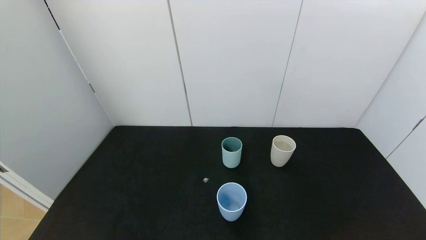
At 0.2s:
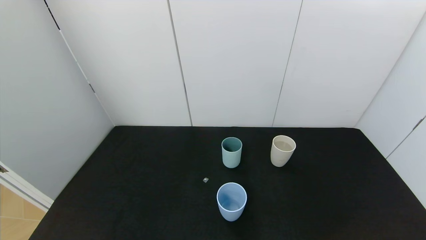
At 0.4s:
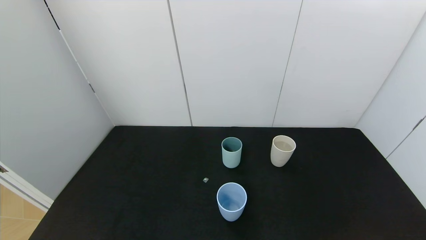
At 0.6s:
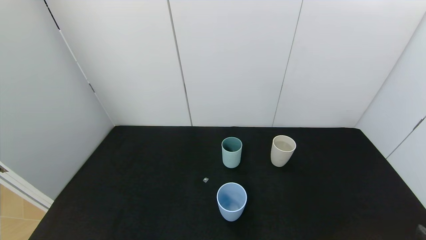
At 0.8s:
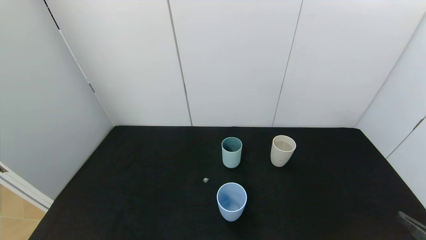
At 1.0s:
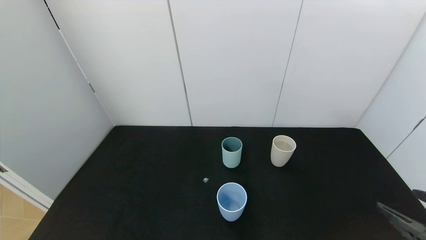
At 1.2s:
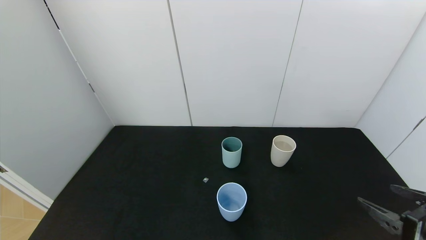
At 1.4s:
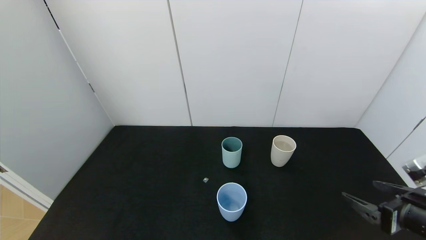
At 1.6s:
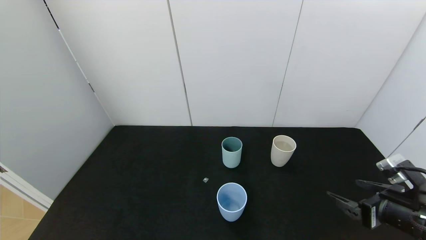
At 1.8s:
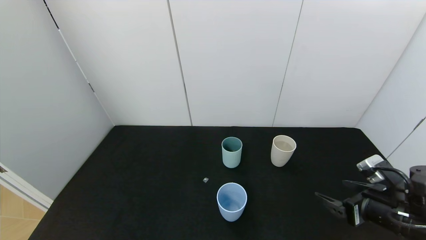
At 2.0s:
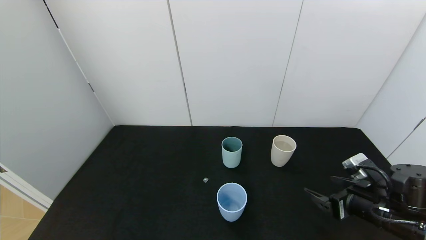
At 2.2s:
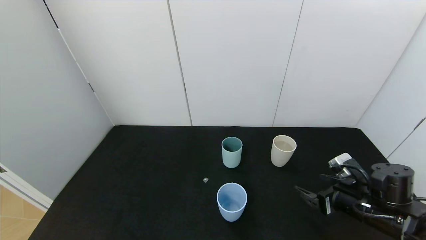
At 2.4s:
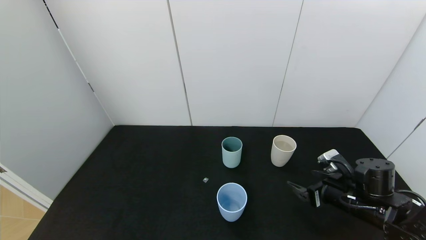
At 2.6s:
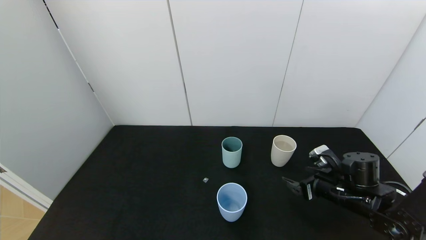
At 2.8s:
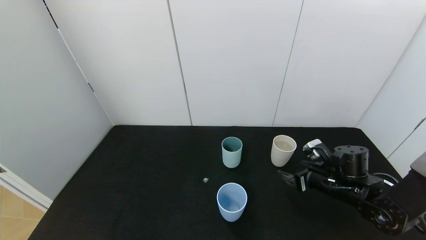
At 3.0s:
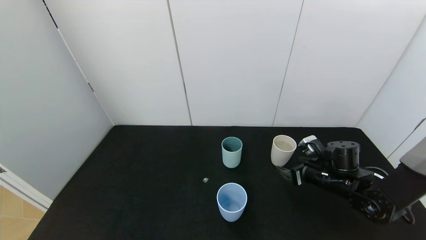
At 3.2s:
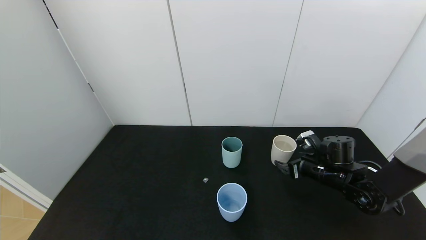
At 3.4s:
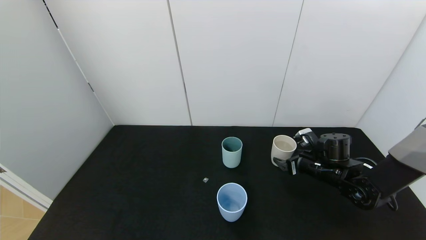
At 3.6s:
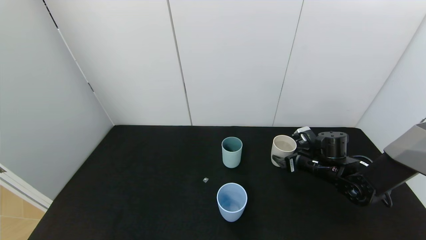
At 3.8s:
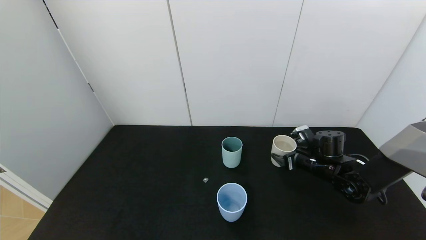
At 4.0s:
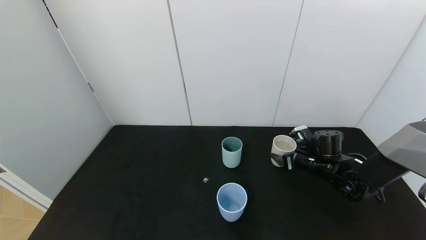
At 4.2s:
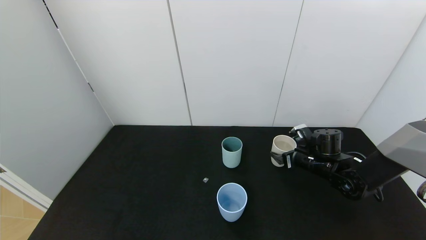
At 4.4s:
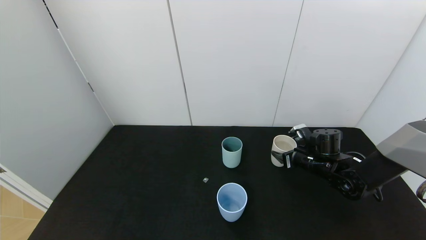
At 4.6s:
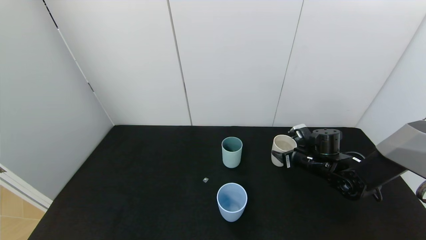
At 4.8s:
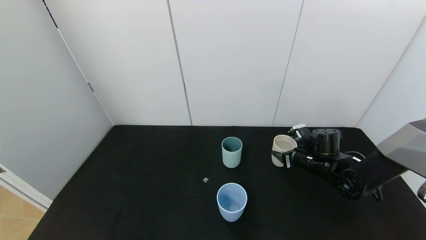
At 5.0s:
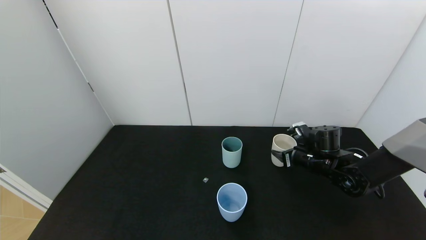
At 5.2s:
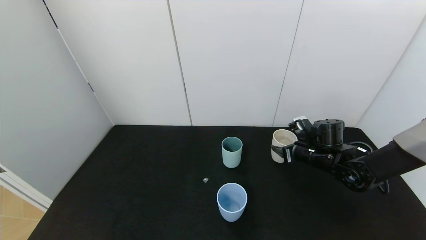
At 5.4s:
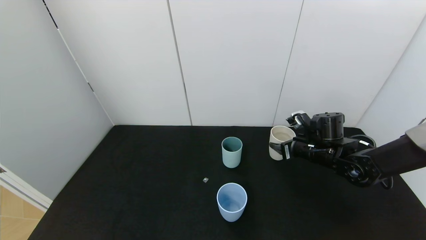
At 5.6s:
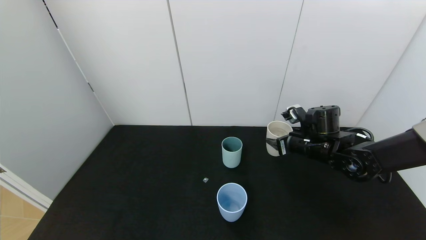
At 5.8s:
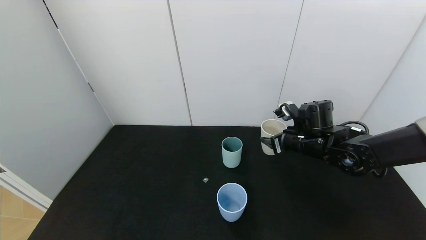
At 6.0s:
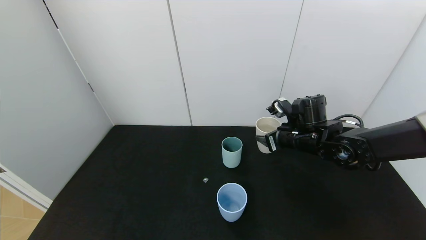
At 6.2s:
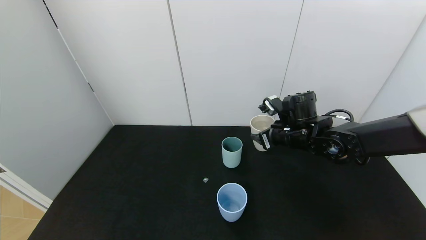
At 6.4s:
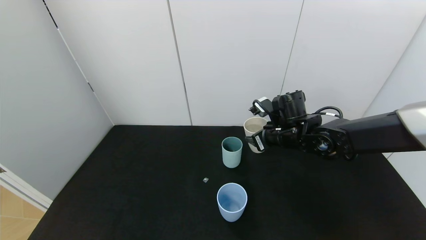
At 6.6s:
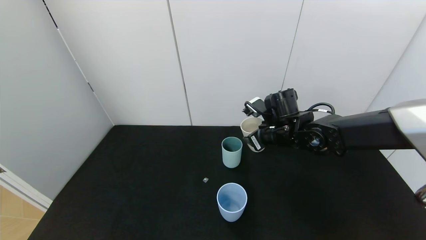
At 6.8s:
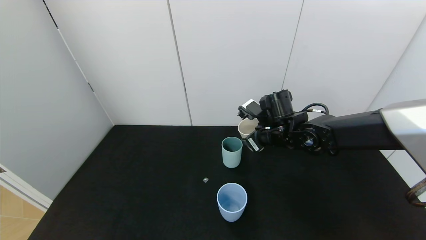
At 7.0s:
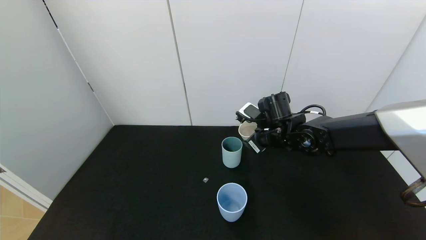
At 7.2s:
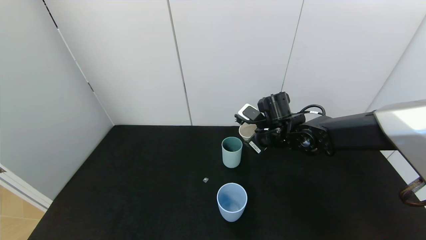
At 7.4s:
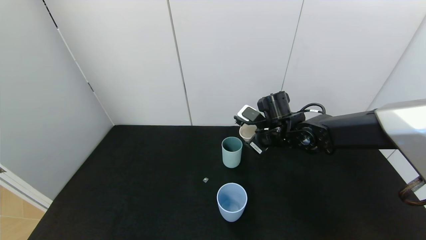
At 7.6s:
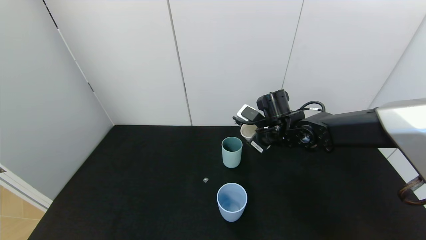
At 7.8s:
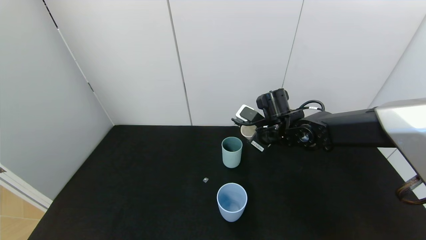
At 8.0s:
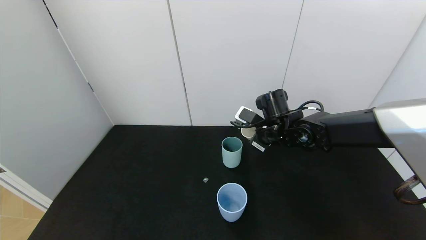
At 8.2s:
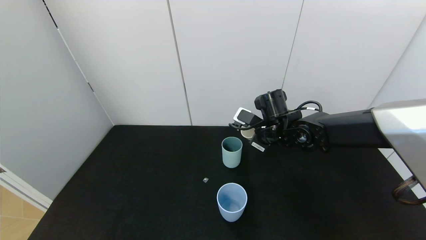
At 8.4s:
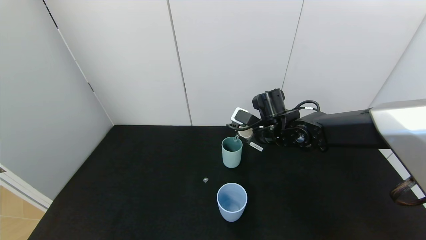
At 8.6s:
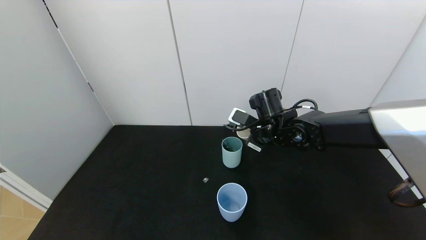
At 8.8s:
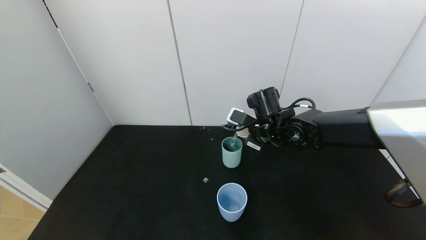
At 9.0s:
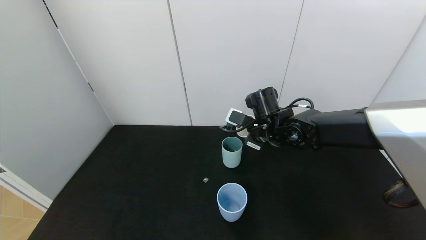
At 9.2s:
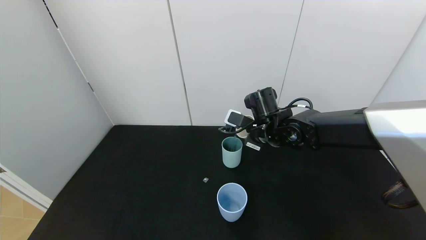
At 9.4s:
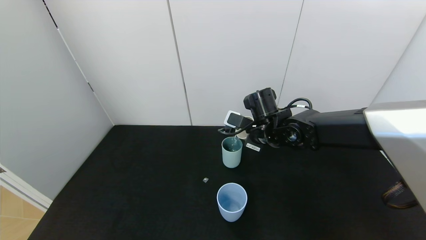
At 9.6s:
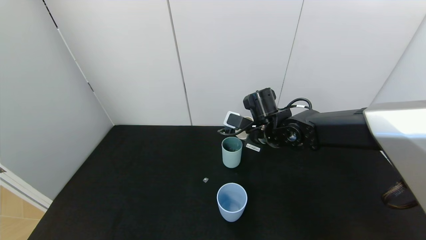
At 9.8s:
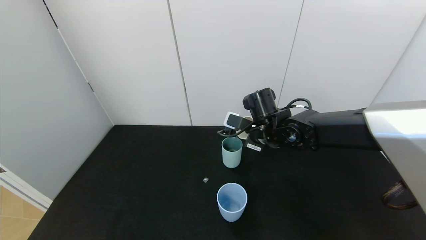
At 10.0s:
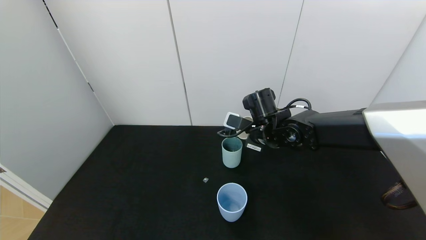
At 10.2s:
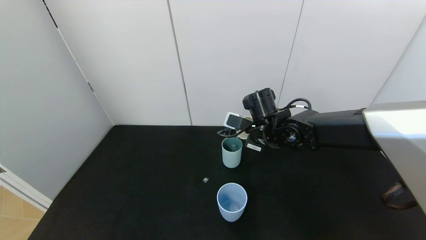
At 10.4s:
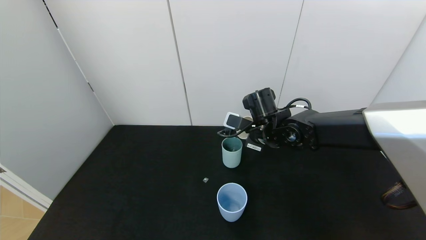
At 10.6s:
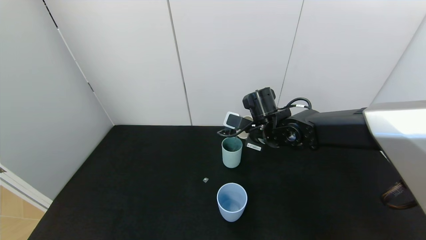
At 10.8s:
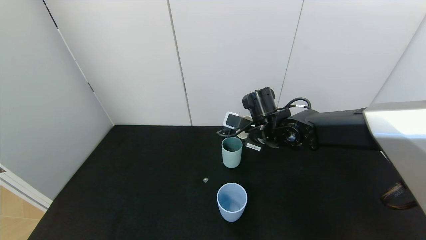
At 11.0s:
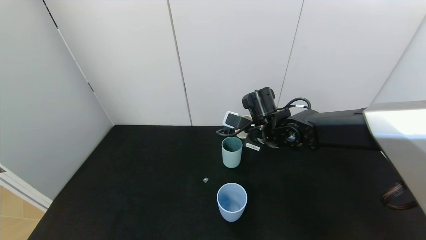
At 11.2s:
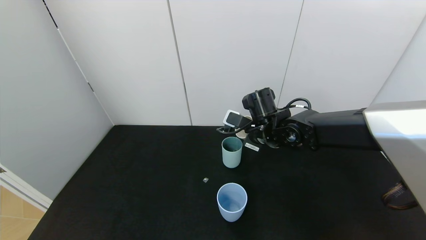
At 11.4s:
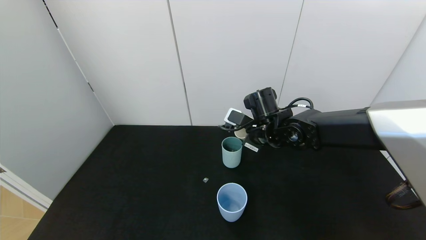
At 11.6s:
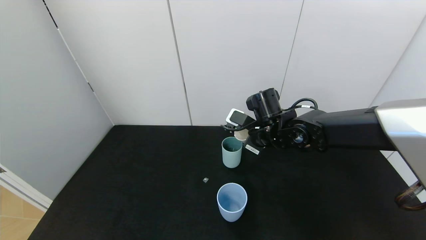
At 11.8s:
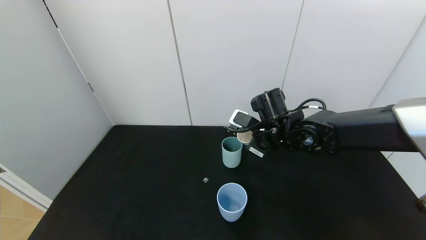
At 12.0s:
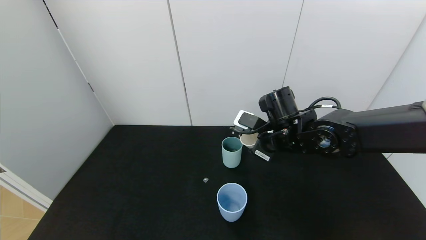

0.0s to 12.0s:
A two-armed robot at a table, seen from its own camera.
Task of the whole recording: use the gripper to pour the water into the other two cups on black table.
Step, 0.0s to 4.6s: Grasp the white cup with the right gripper.
Step, 4.8s to 12.0s: Pour water from white cup to green cup with the right gripper.
0.0s to 1.6s: The right gripper goes about 20 cm forward.
1.6s to 3.0s: The right gripper travels forward and to the left by roughly 15 cm.
3.0s to 4.4s: The right gripper shifts about 5 cm forward, and closes.
4.4s to 6.0s: The right gripper moves upward and to the left, about 10 cm.
6.0s to 7.6s: The right gripper goes roughly 5 cm to the left.
7.6s to 9.0s: The grippers make only small movements.
9.0s to 10.4s: The grippers stay close to where they were, moving slightly.
10.4s to 12.0s: The right gripper changes place by about 5 cm.

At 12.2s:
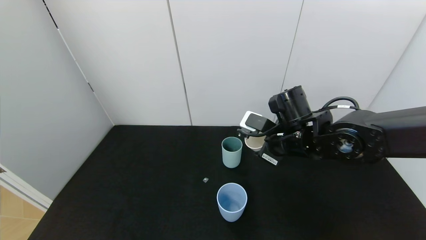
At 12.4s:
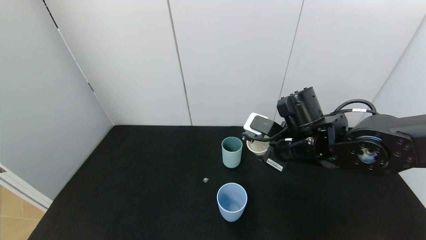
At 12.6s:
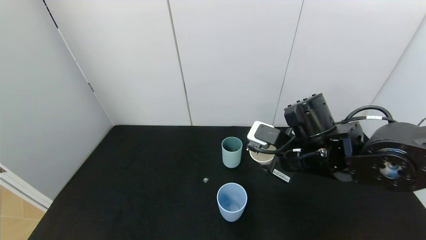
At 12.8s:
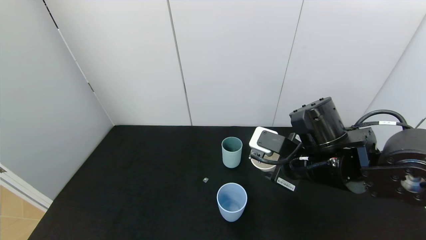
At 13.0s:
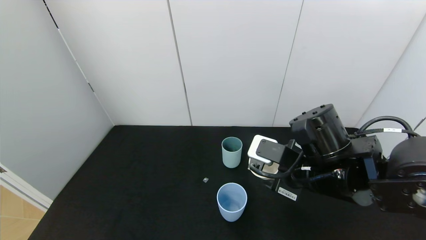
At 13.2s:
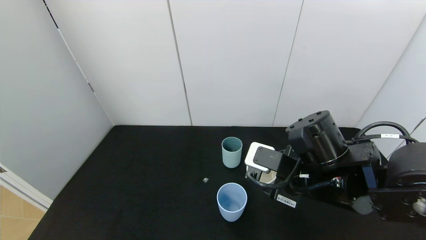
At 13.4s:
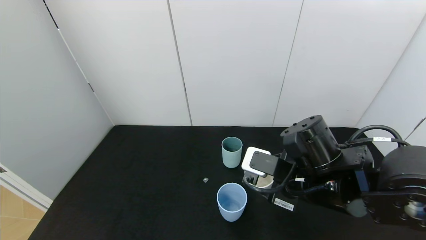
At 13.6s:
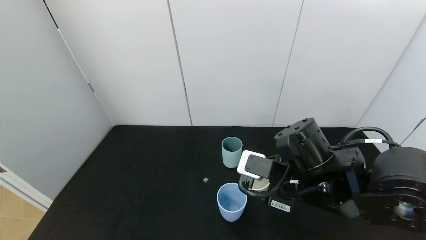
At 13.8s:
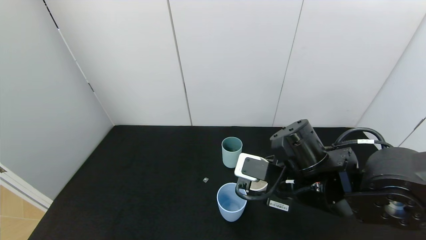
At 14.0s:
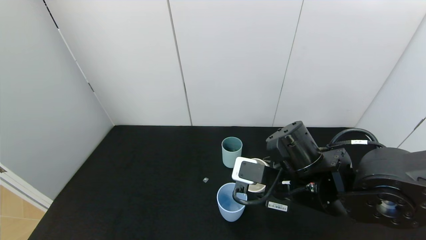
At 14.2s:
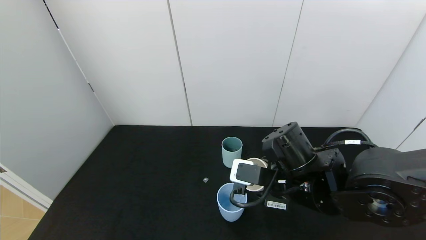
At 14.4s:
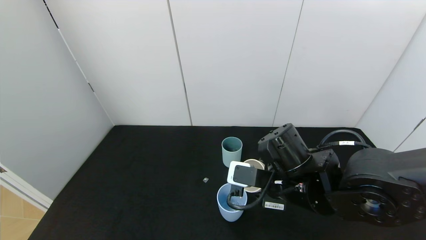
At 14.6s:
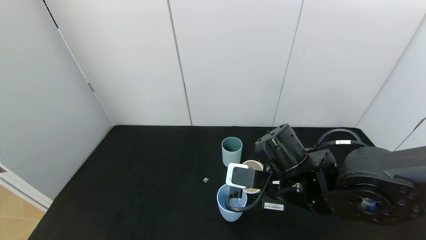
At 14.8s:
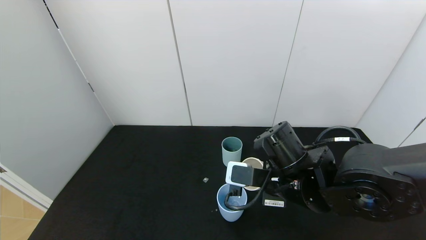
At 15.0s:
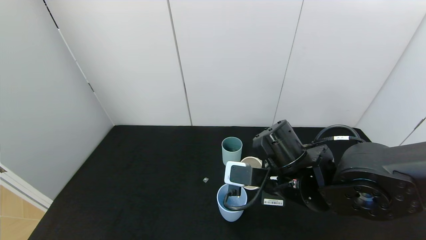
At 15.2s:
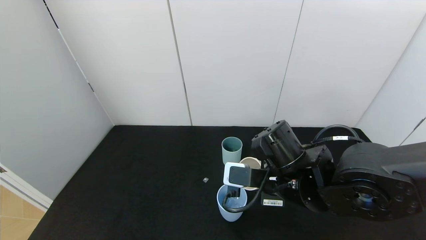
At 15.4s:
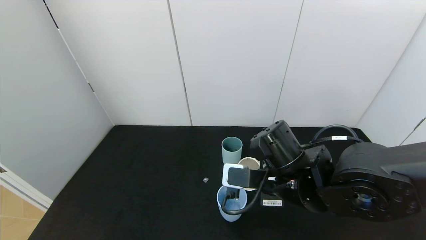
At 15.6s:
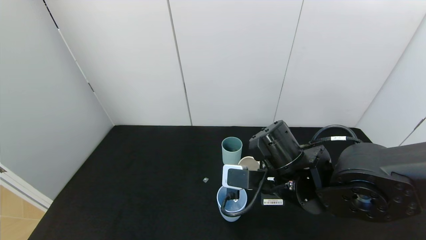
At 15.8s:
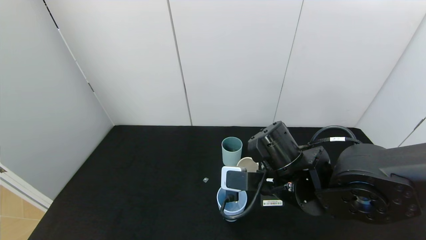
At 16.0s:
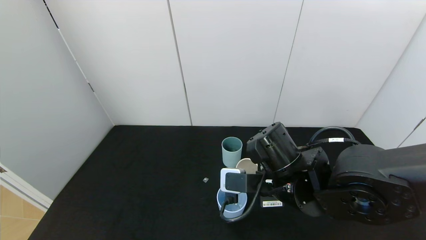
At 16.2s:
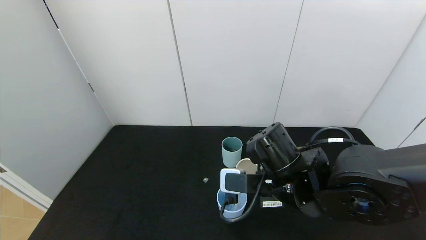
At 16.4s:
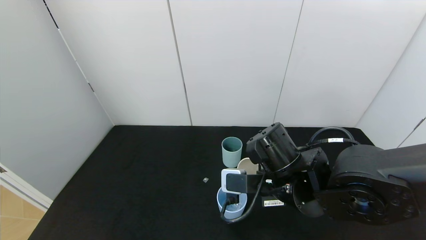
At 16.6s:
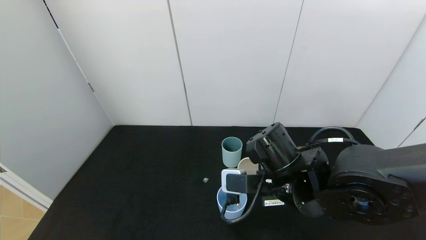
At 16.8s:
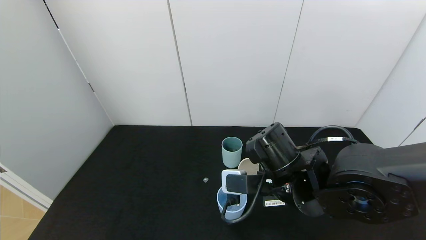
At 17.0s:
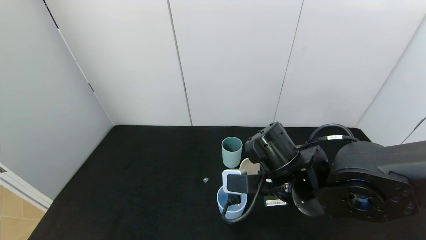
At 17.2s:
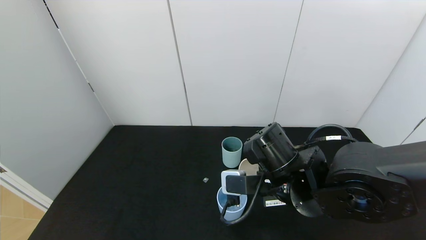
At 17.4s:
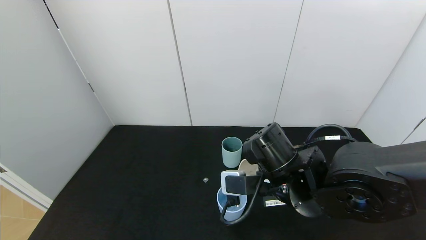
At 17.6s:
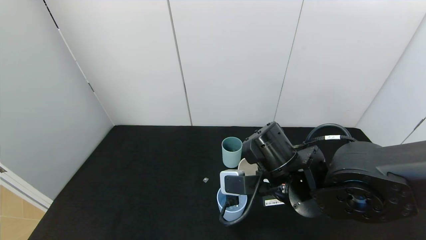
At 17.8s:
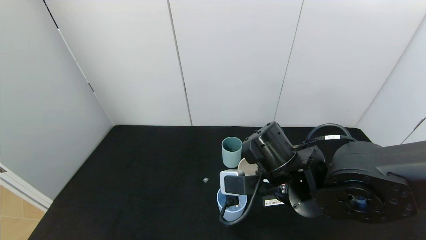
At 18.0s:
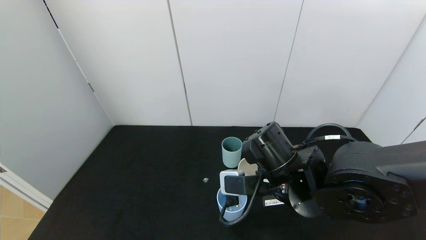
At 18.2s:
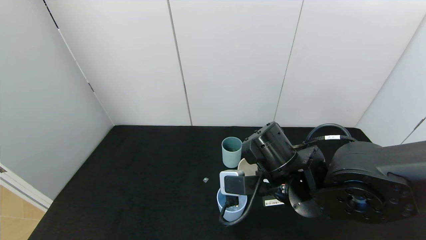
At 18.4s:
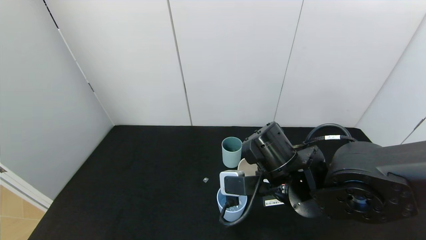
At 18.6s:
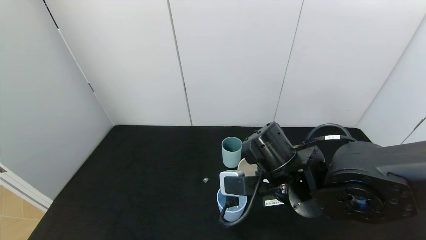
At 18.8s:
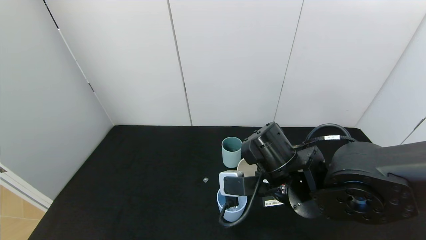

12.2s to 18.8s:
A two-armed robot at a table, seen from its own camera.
Task of the whole recording: use the gripper to pour the water into the other two cups on black table.
12.2s to 13.8s: The right gripper is displaced backward by about 10 cm.
13.8s to 15.4s: The grippers make only small movements.
15.4s to 17.2s: There are only small adjustments of the grippers.
17.2s to 18.8s: The two grippers keep their place.
